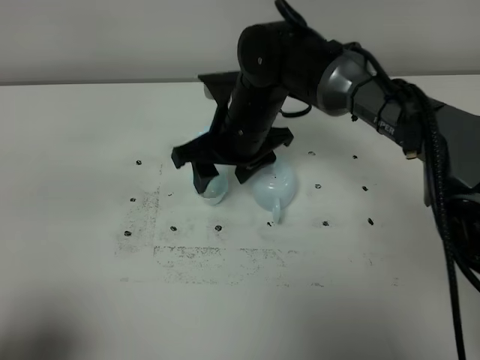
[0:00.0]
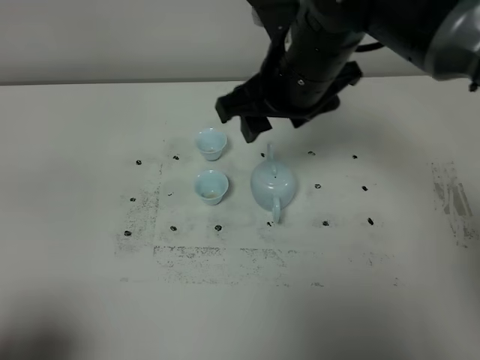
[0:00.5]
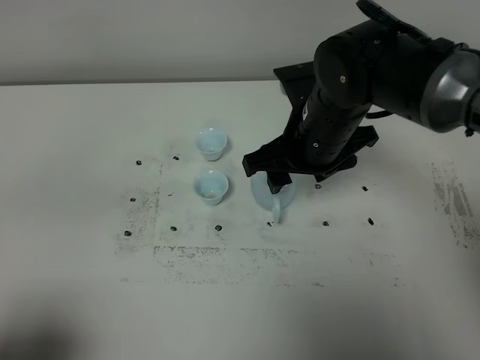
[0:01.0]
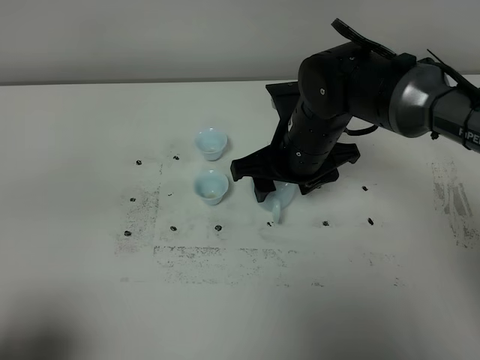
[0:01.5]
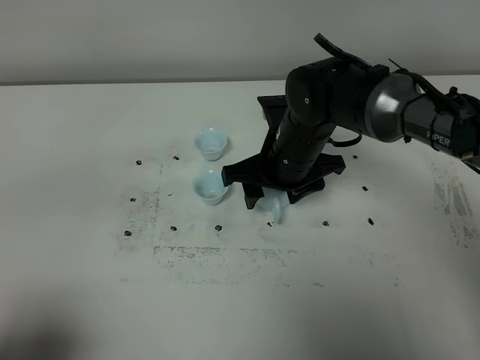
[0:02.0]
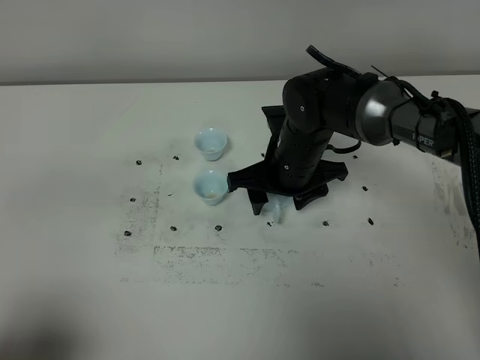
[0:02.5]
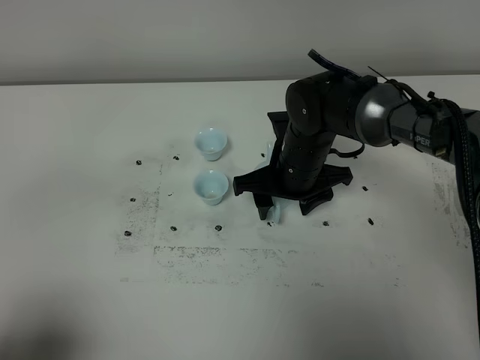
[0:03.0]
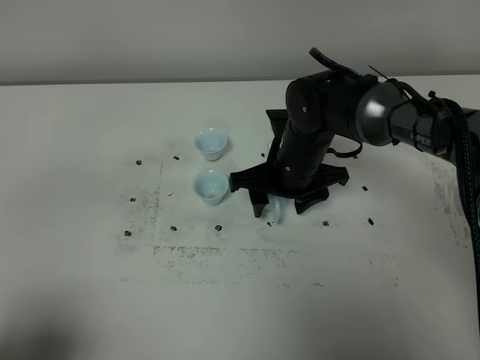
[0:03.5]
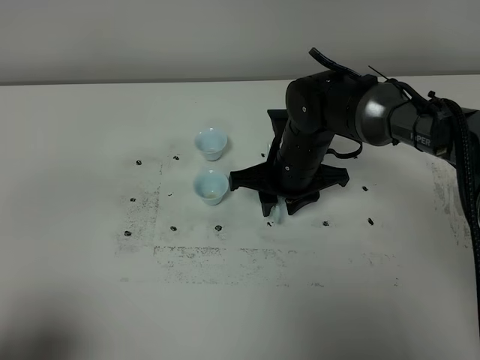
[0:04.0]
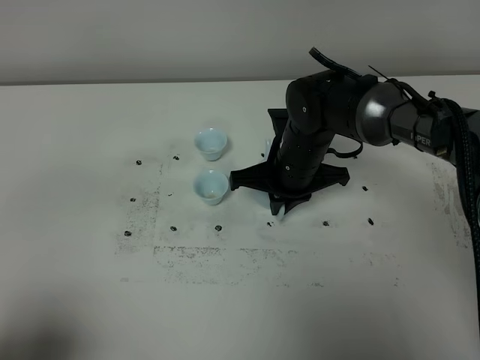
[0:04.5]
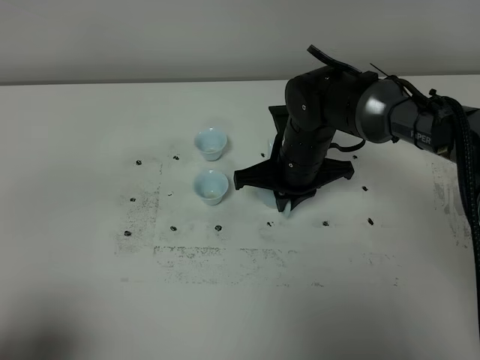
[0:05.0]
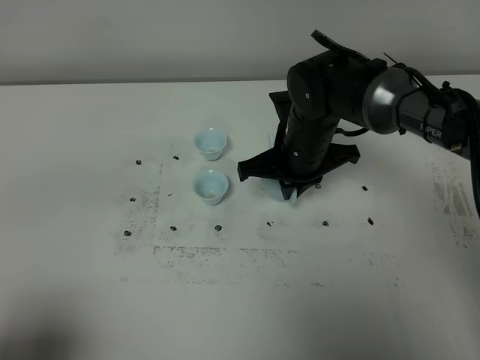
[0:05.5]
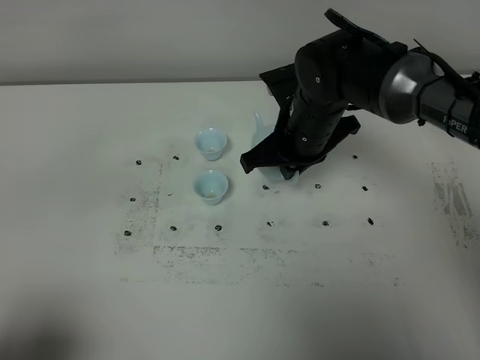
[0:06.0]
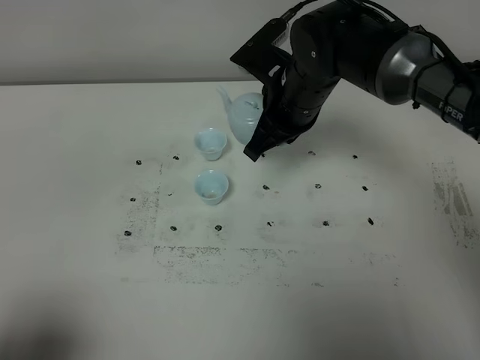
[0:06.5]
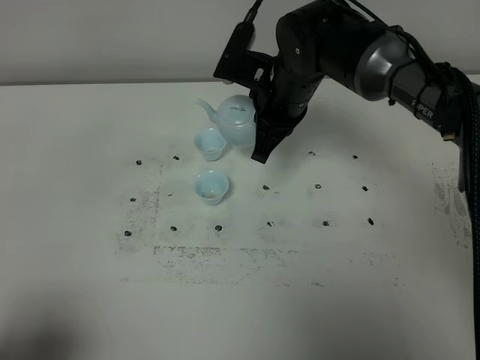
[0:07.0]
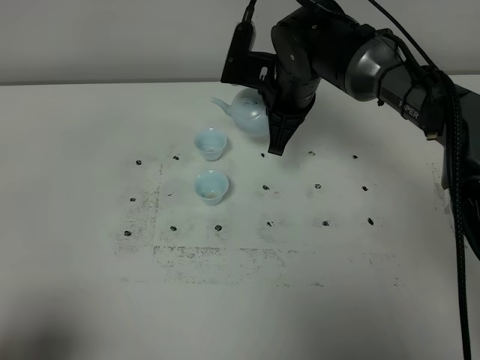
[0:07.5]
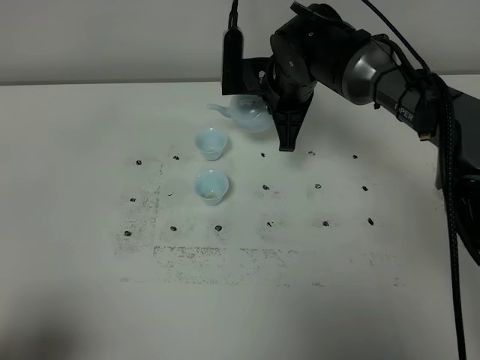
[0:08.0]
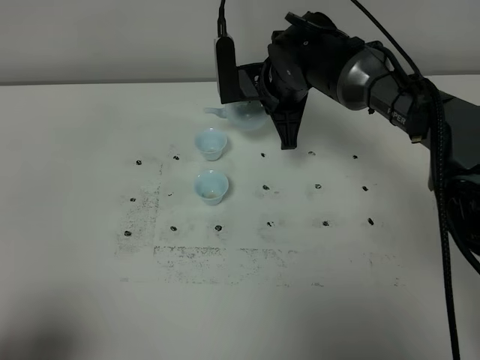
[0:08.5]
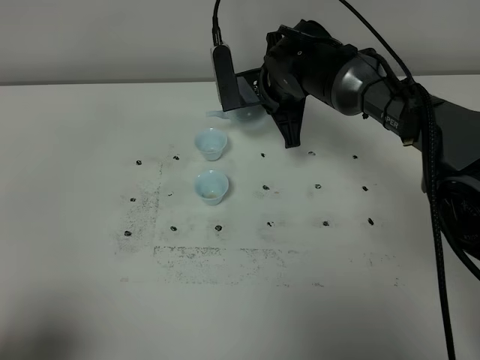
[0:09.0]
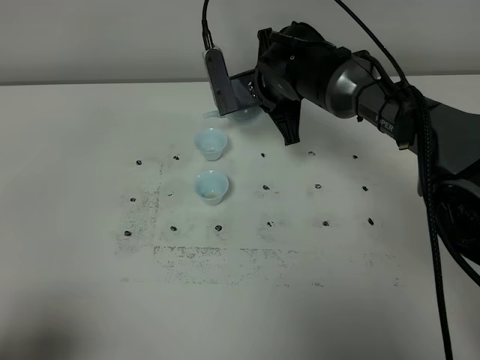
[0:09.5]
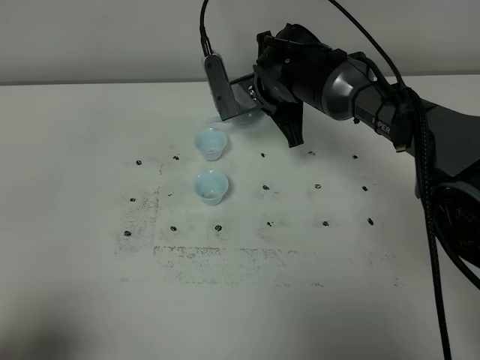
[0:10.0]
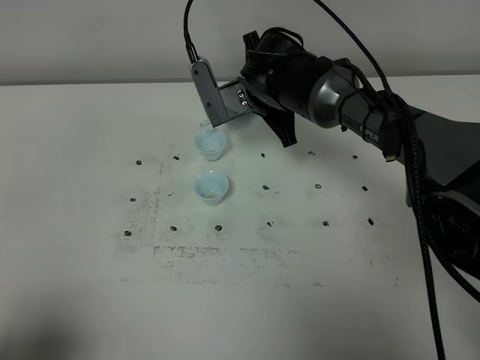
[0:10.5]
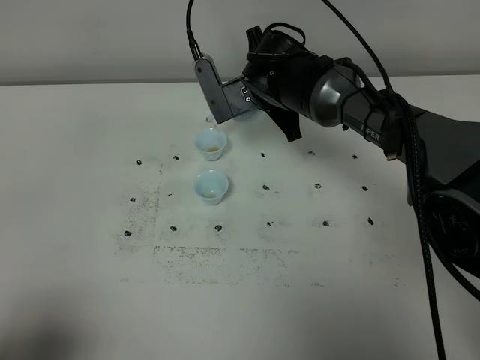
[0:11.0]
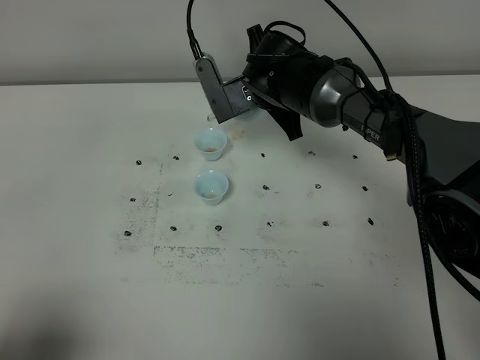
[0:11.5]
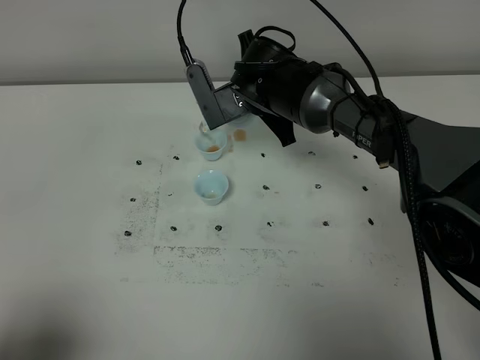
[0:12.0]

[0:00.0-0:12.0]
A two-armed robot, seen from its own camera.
Task of the whole recording: grasp the blue porcelain teapot and pour the tea into the two blue porcelain teacups one by one, put the blue porcelain teapot back in its original place.
Step, 0.0 to 5.5 s: Pick up the teapot with the right gripper.
0.0 to 2.0 s: The right gripper shifts approximately 5 cm to the right and downward.
2.0 to 4.0 s: The right gripper closes up.
4.0 to 6.0 s: The right gripper travels upward by roughly 5 cm, and closes.
6.0 to 8.0 s: The right gripper shifts some 5 cm forward.
10.0 to 12.0 s: The grippers make only small movements.

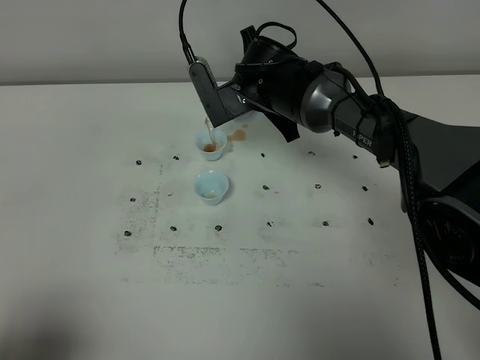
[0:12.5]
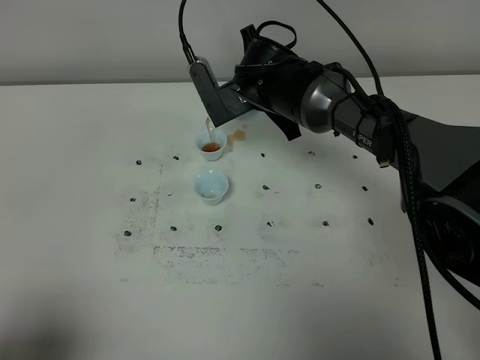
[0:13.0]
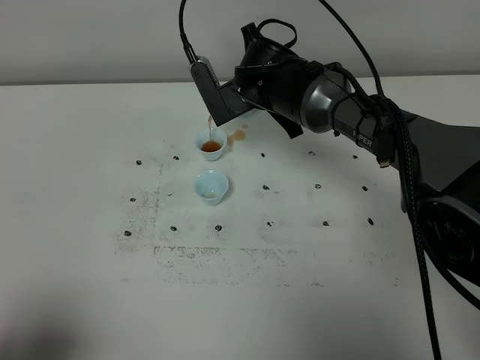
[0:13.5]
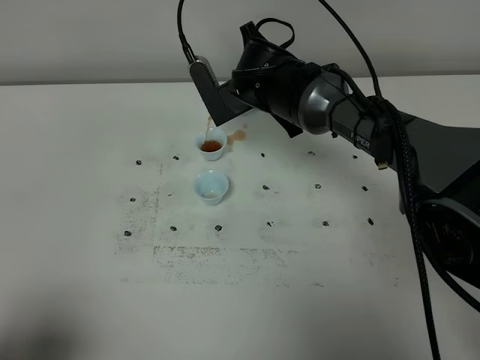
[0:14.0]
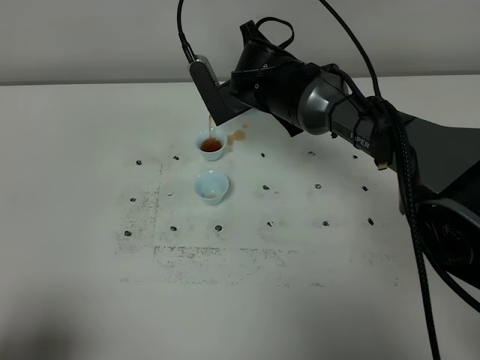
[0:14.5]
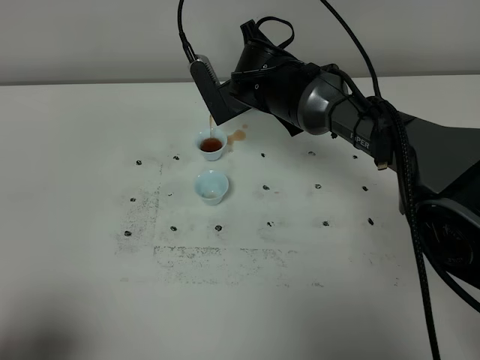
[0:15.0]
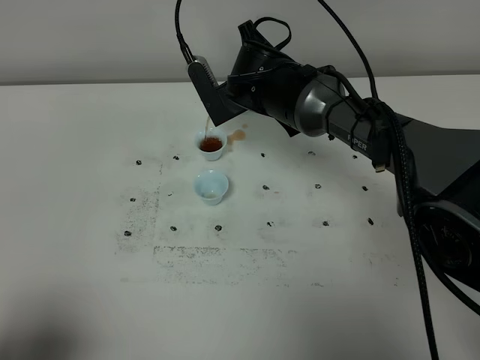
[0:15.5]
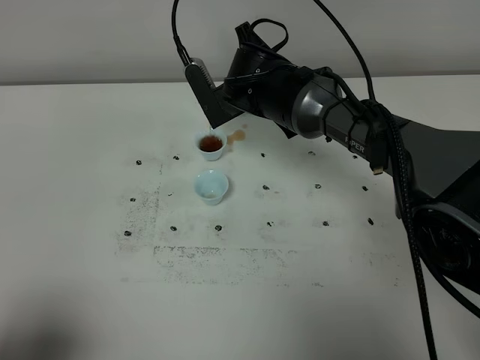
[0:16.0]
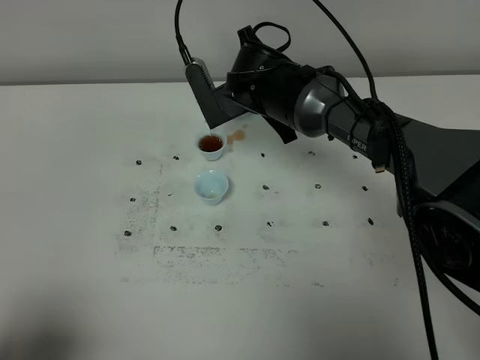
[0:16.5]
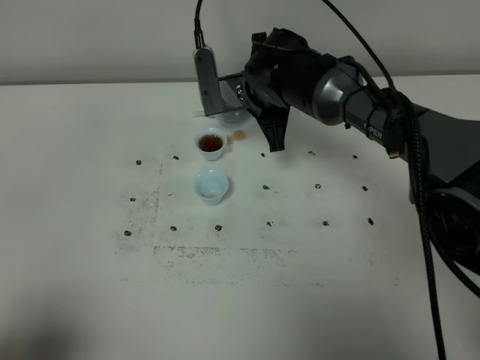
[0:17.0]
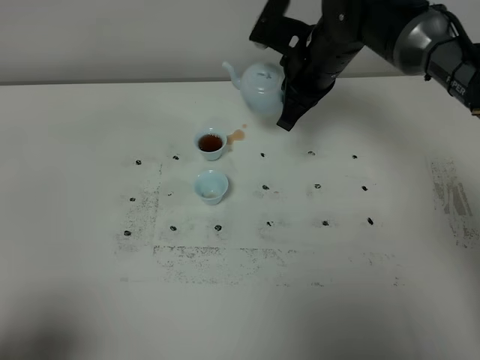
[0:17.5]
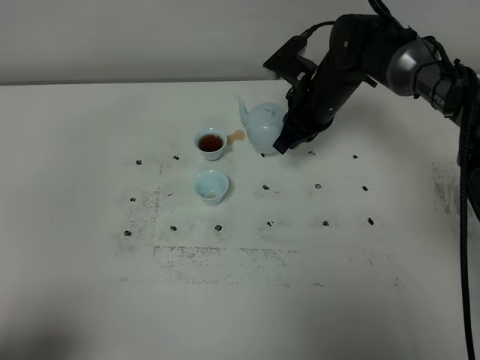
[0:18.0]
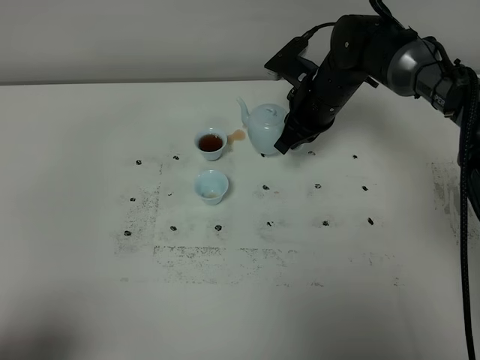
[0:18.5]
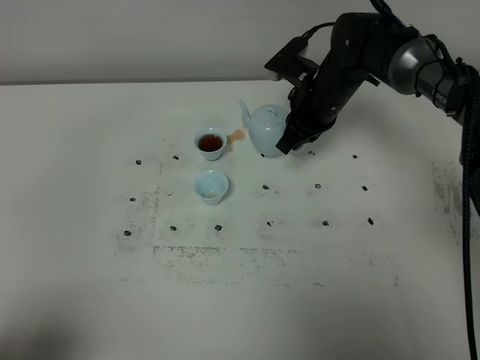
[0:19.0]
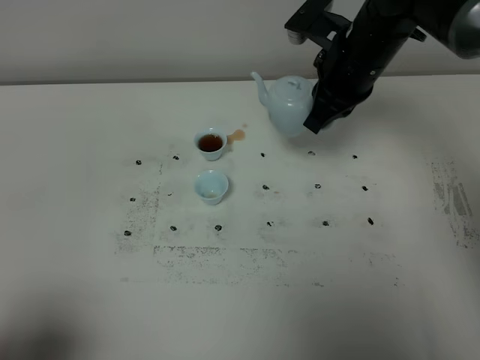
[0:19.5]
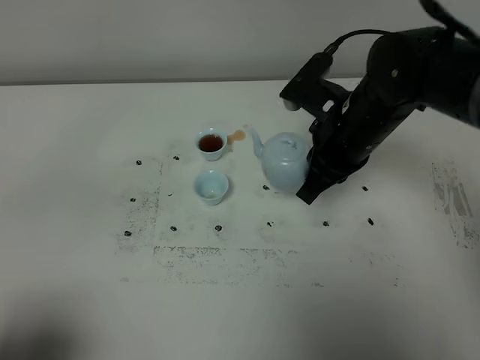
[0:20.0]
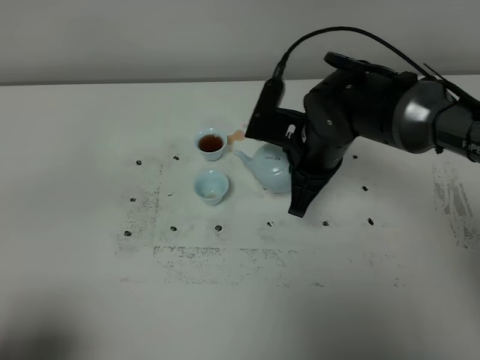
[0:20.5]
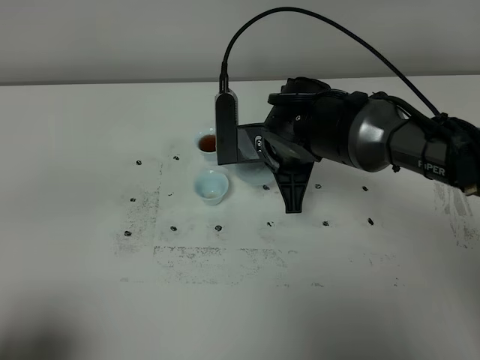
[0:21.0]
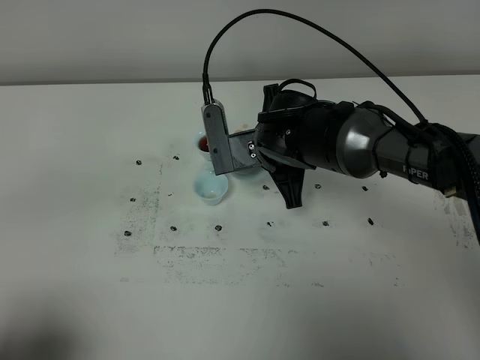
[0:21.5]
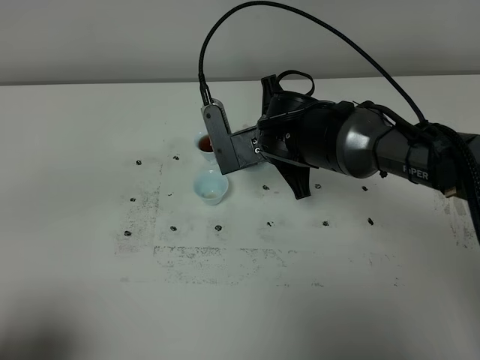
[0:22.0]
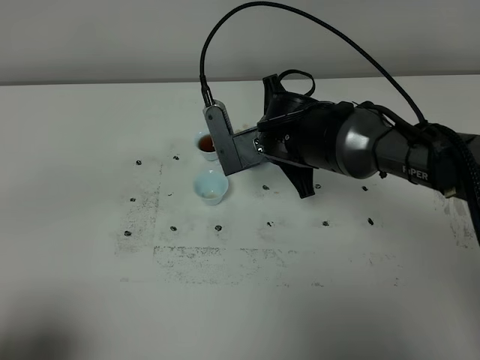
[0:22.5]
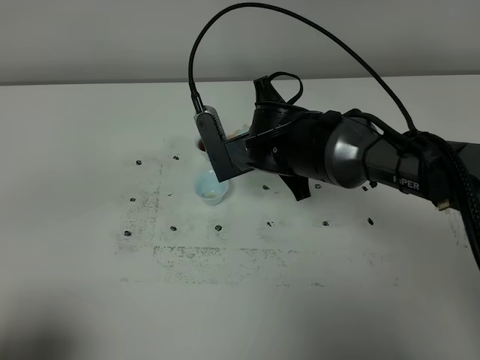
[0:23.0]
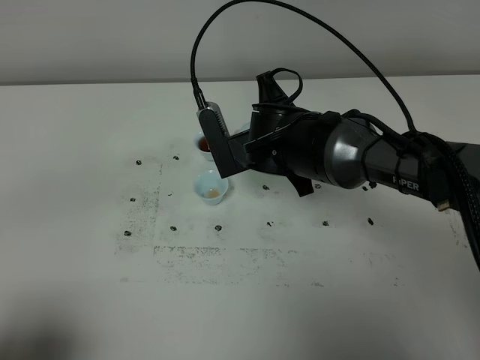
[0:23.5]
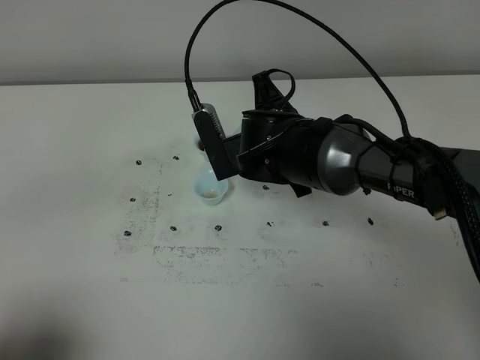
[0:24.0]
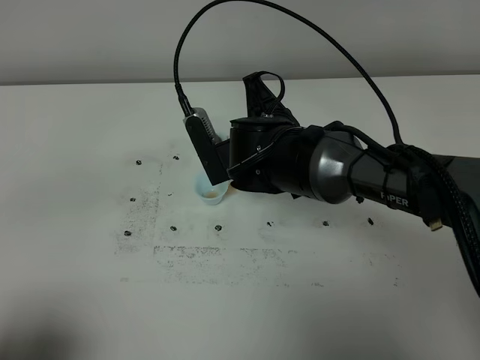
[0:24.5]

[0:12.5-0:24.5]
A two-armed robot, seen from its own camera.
Task of the whole recording: grasp the blue porcelain teapot and pour the tea into the two blue porcelain teacups one by one, put the blue porcelain teapot back in its original place.
12.5 to 14.5 s: Both grippers stay about where they are.
14.5 to 16.5 s: The two grippers keep their place.
16.5 to 18.5 s: The right gripper heads to the right, covering about 10 cm.
18.5 to 20.5 s: The right gripper goes roughly 10 cm backward.
22.5 to 24.5 s: The grippers stay close to where they were, moving slightly.

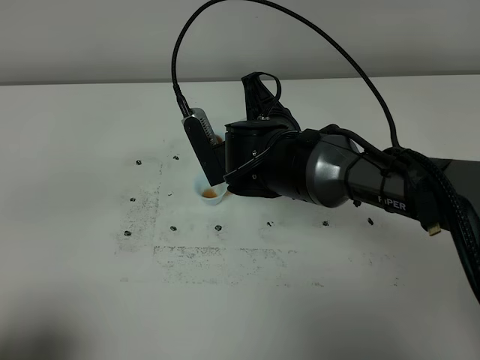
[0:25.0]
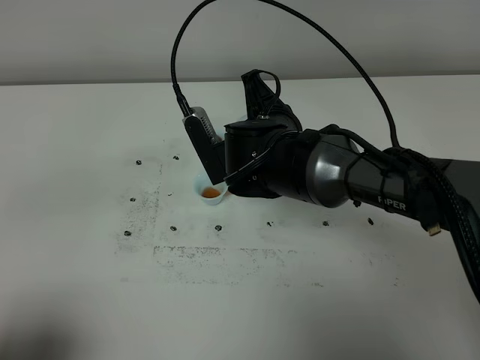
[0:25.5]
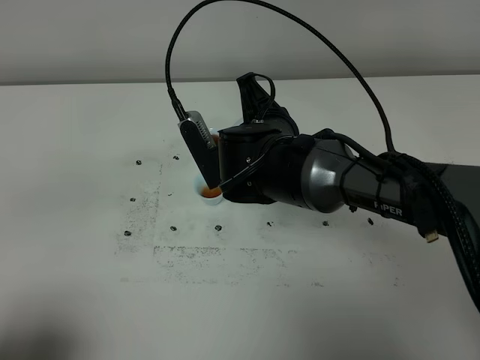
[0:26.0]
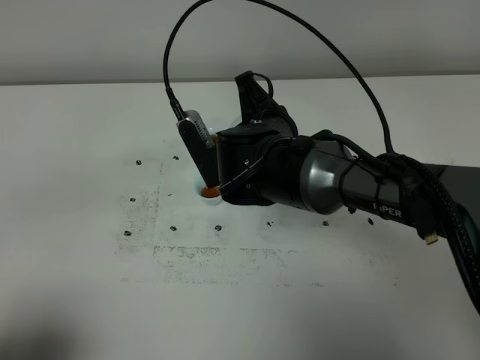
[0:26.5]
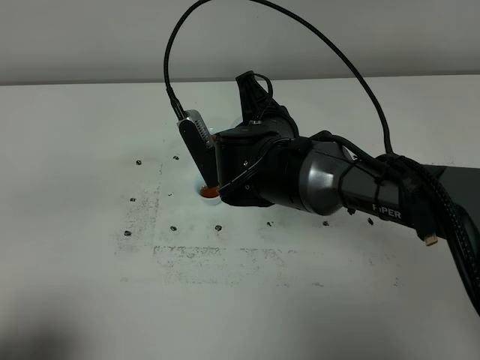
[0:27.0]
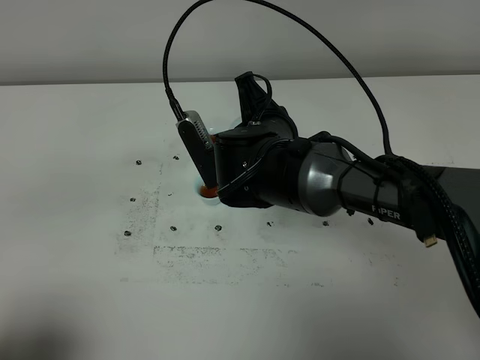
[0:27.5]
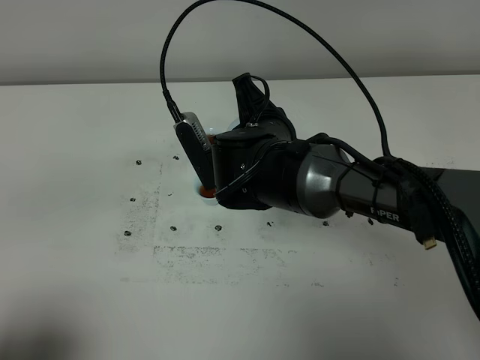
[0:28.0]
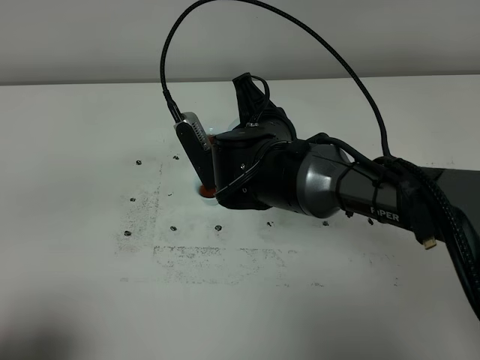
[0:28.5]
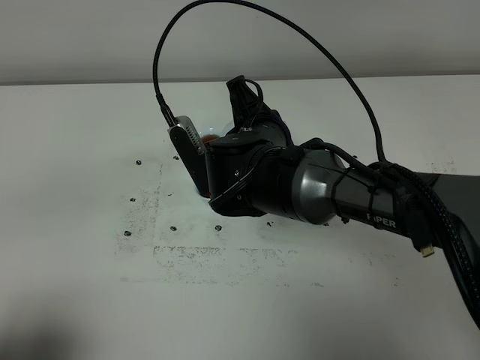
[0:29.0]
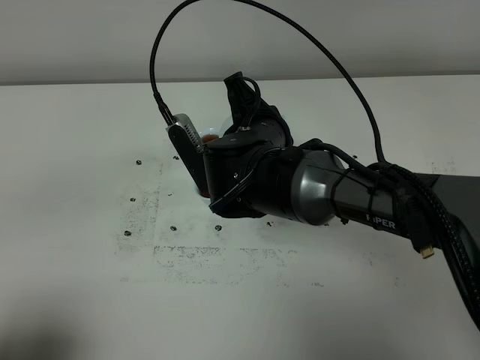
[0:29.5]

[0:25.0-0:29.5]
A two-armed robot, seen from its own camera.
Task of the whole recording: grasp the blue porcelain teapot and pour the tea into the two blue porcelain teacups one by one, put the blue porcelain teapot back in its original place.
25.0 to 27.0 s: Neither gripper changes place.
27.0 to 29.5 s: Neither gripper changes place.
